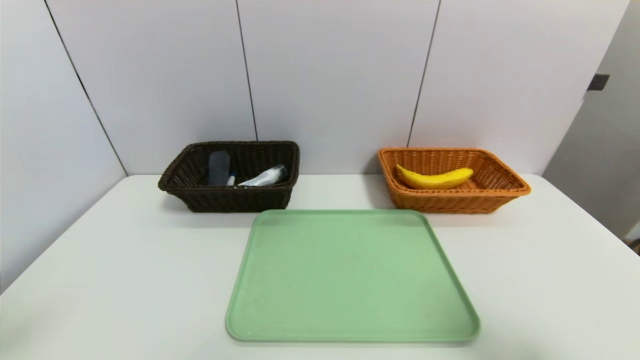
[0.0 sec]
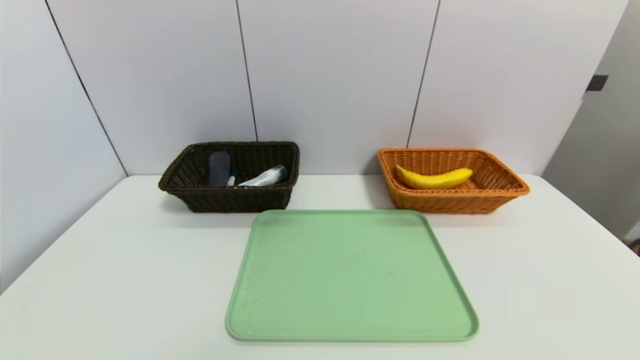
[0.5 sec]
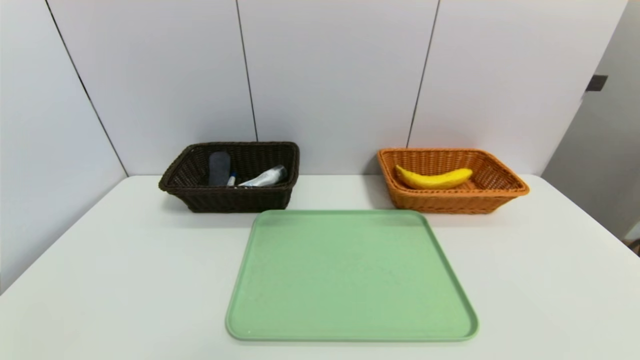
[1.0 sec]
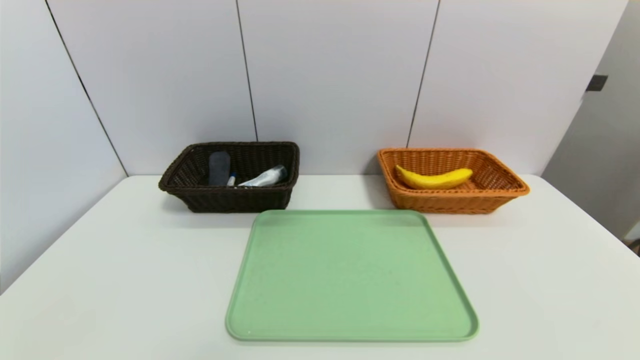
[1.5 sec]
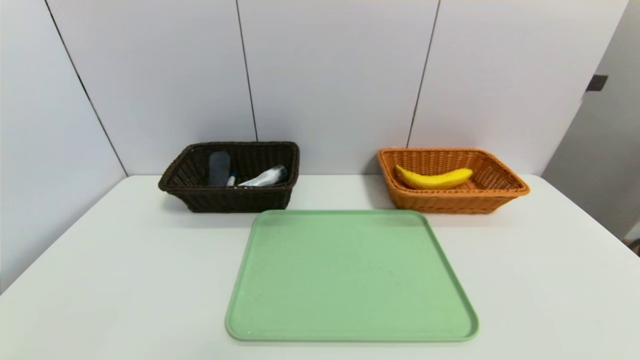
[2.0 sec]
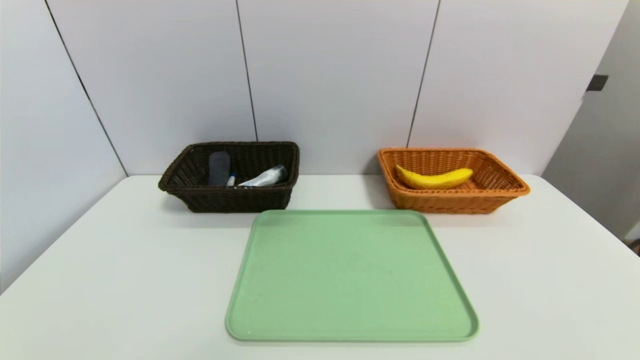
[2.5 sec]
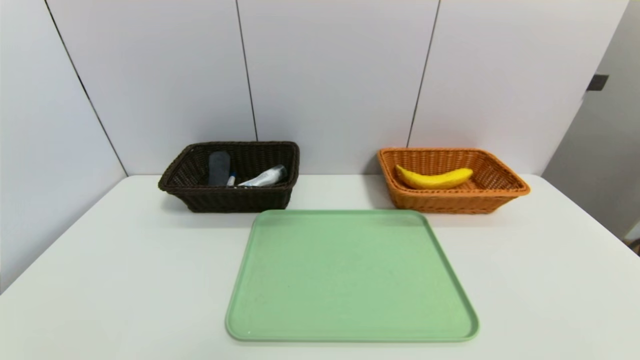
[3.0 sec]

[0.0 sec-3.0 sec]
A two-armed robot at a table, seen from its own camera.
Task of the whole recording: place the food in the right basket with the right gripper, and place the non food items in the left basket with the left gripper.
0.0 sec to 1.5 sec: The right gripper heads downward and backward, covering some 20 cm.

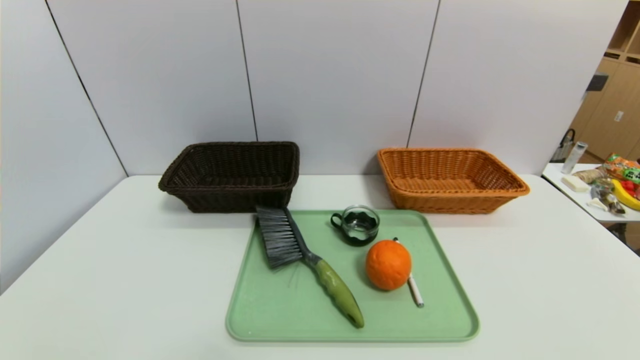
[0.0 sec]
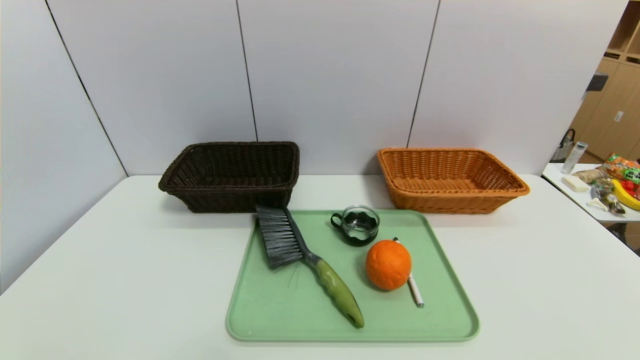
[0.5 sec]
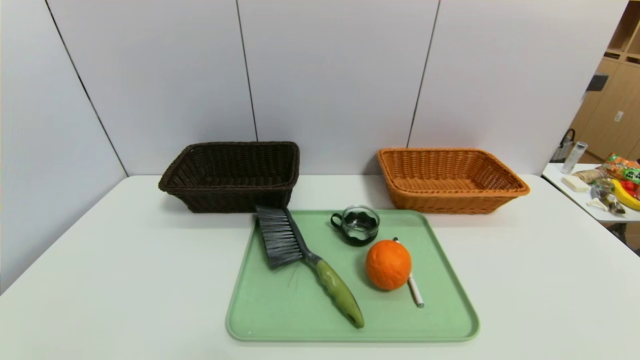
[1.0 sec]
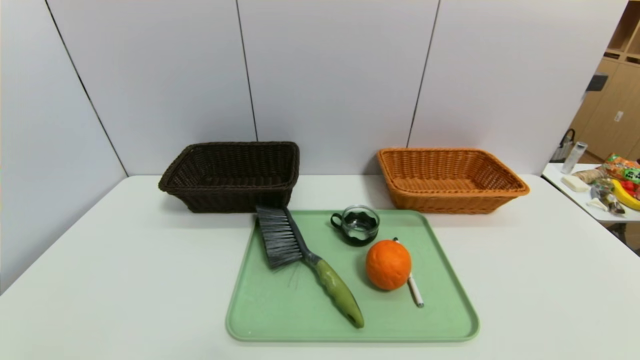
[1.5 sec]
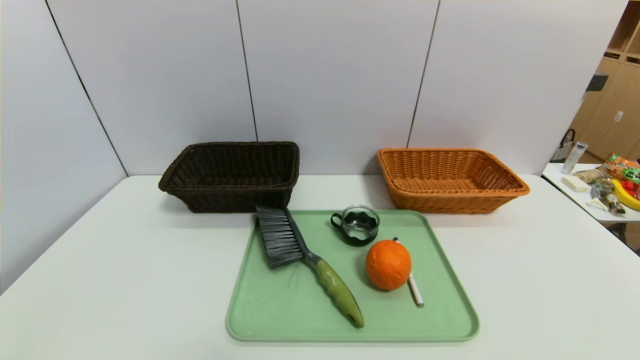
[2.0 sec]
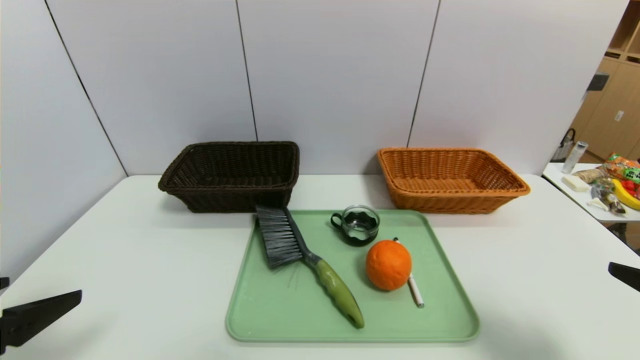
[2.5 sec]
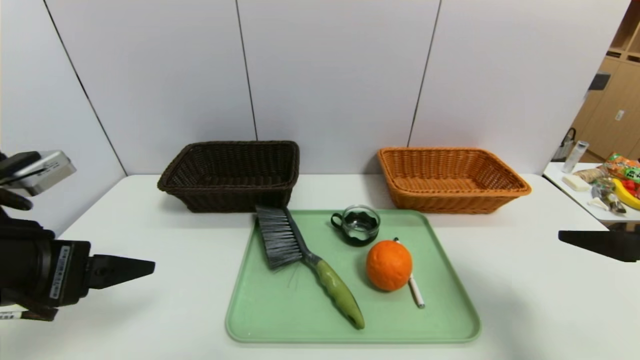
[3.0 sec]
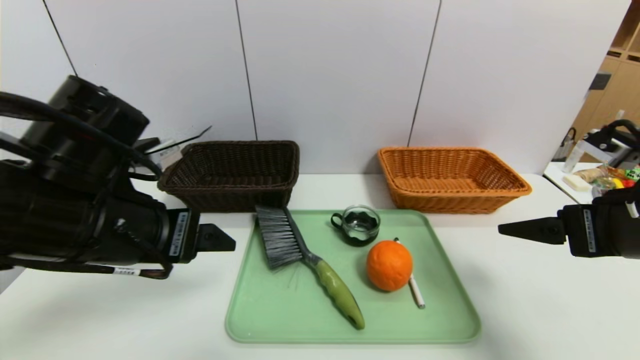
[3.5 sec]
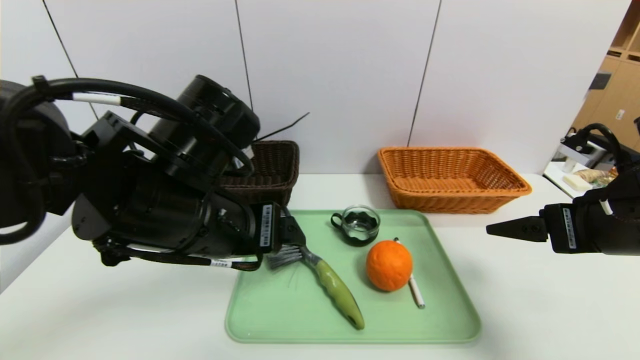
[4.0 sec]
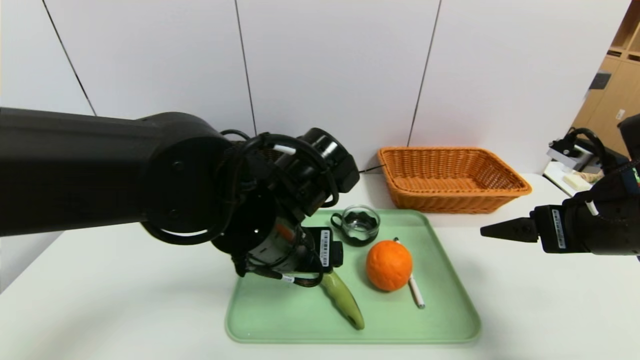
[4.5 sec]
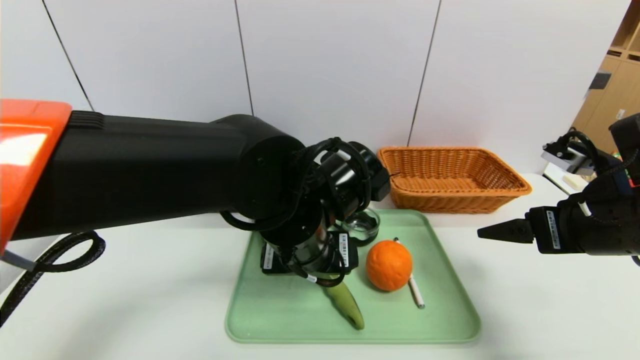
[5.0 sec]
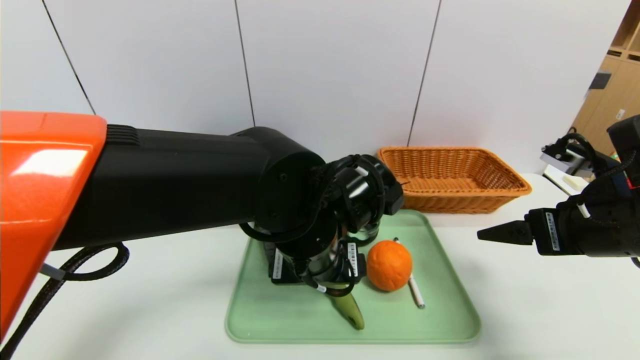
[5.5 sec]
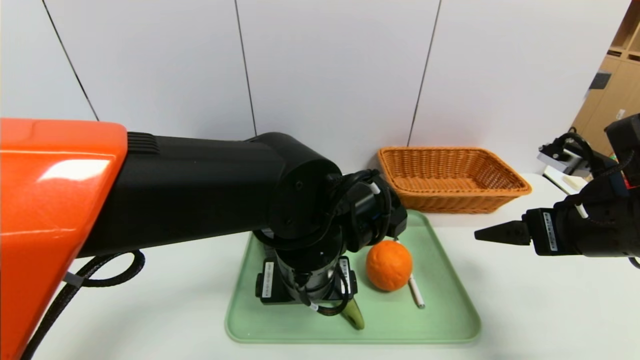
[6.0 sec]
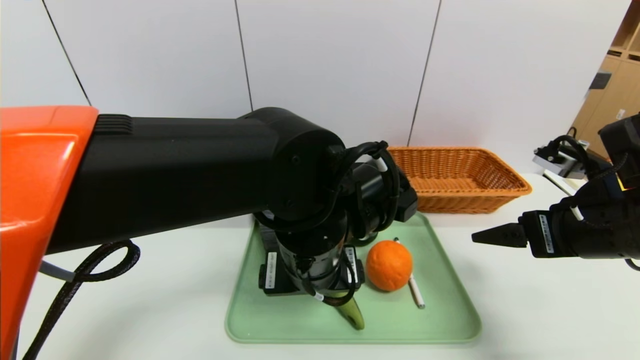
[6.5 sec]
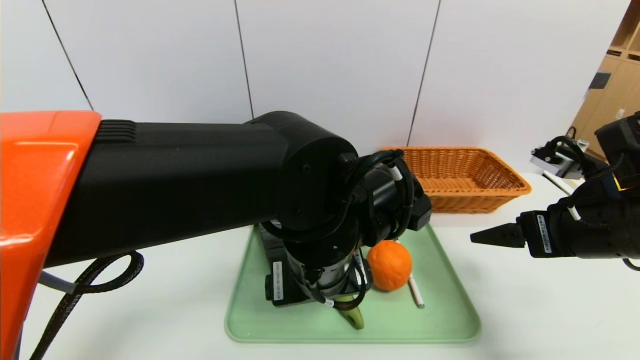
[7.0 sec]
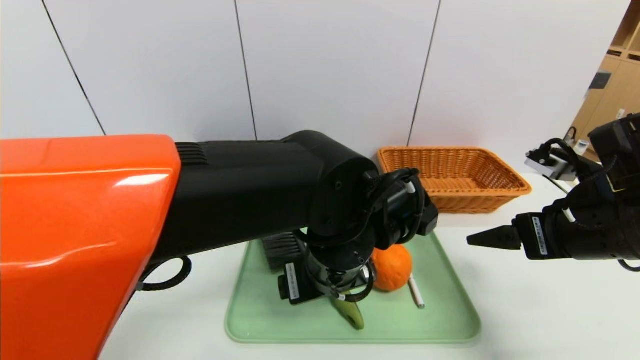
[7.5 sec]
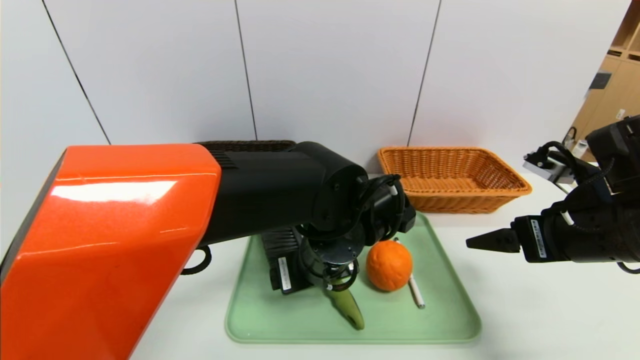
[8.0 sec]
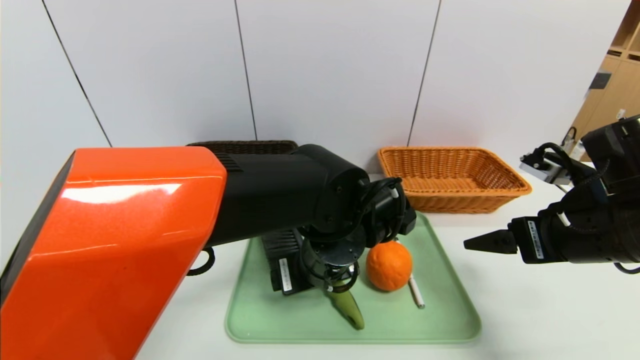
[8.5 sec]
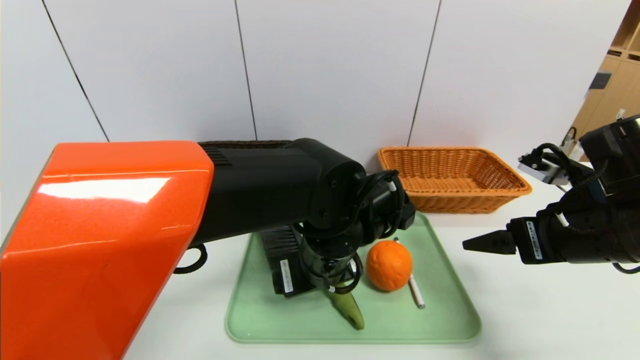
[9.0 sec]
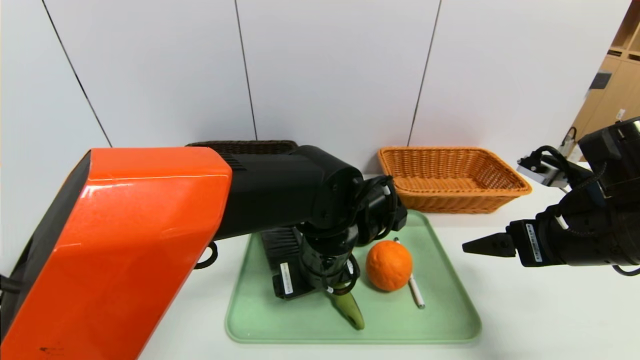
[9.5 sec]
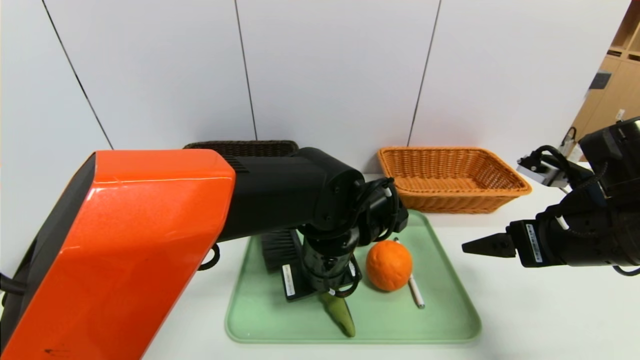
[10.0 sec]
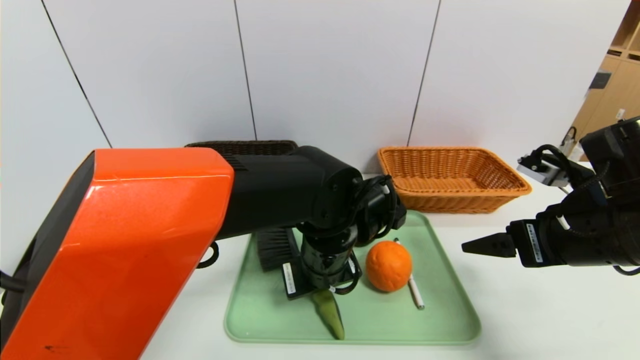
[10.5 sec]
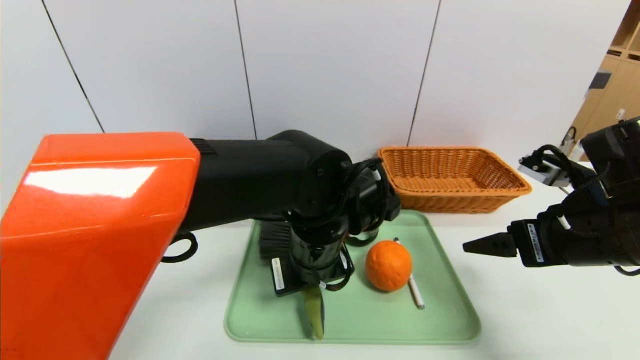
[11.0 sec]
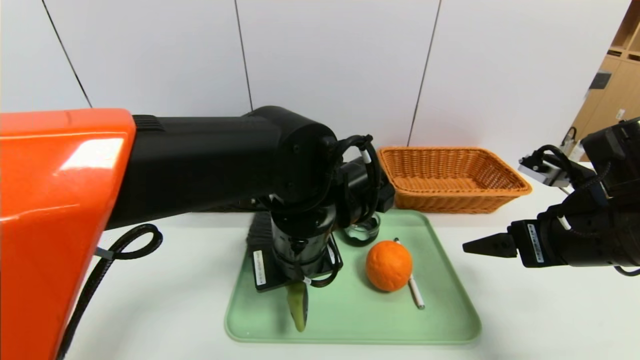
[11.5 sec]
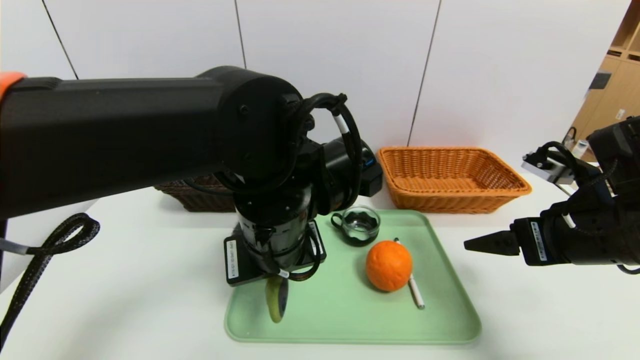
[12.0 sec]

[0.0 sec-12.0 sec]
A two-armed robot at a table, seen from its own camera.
Task of the whole recording: place the food in the right basket with the right gripper, and place the non food items in the left basket with the left gripper.
2.0 sec to 4.0 sec: The left gripper moves forward and to the right, roughly 30 cm. Meanwhile the right gripper travels forward by some 20 cm.
4.0 sec to 6.0 sec: The left gripper heads to the right and downward, covering roughly 10 cm.
8.0 sec to 10.0 sec: The grippers move only a little.
10.0 sec to 12.0 sec: The left gripper shifts roughly 10 cm upward and to the left, and closes up.

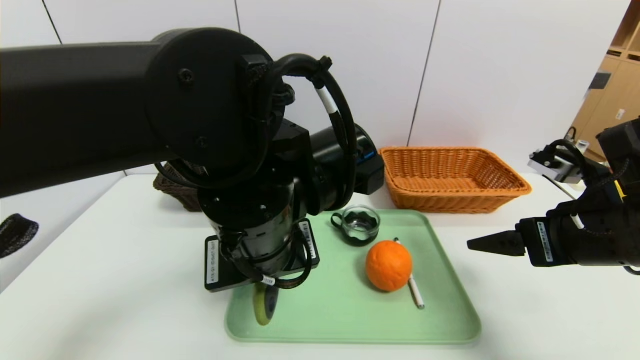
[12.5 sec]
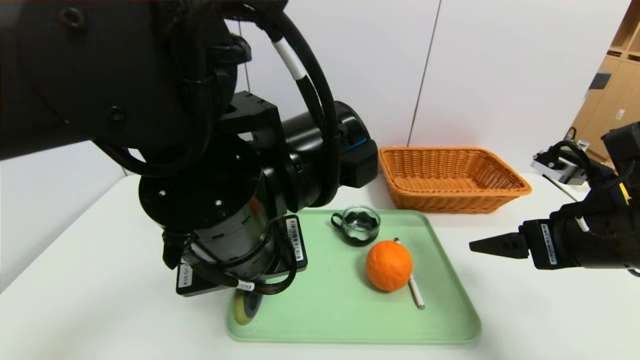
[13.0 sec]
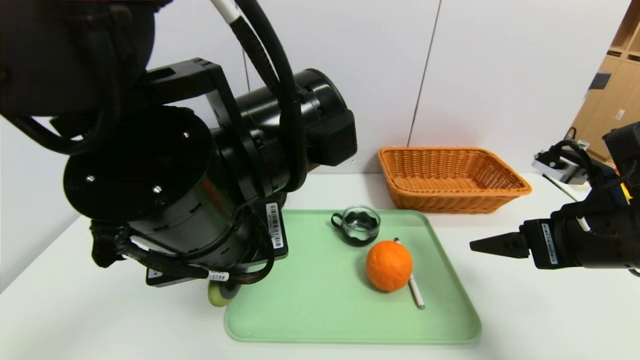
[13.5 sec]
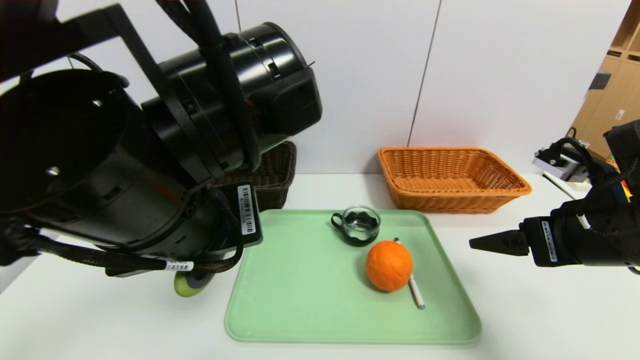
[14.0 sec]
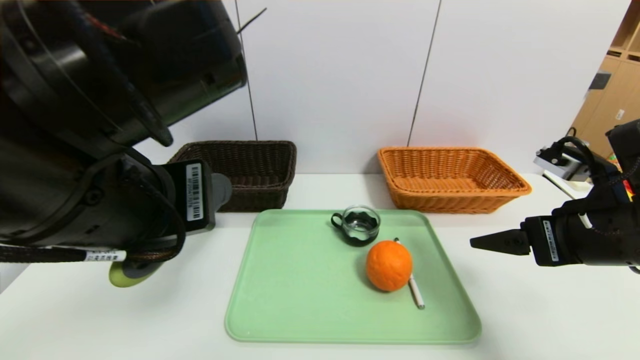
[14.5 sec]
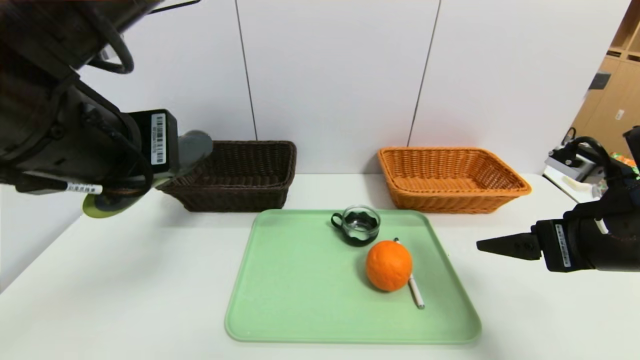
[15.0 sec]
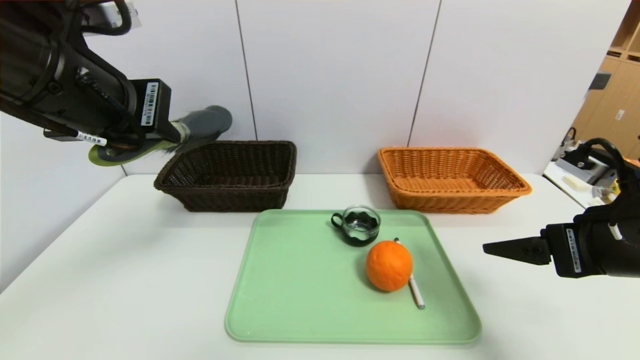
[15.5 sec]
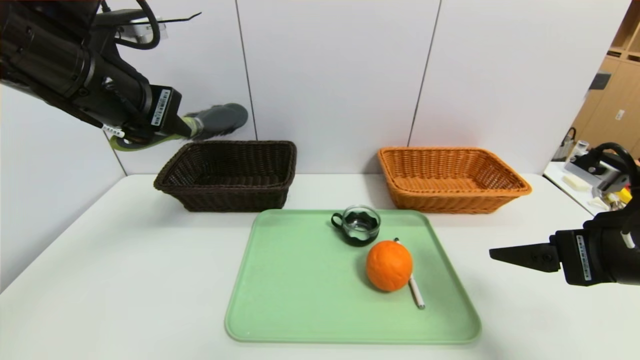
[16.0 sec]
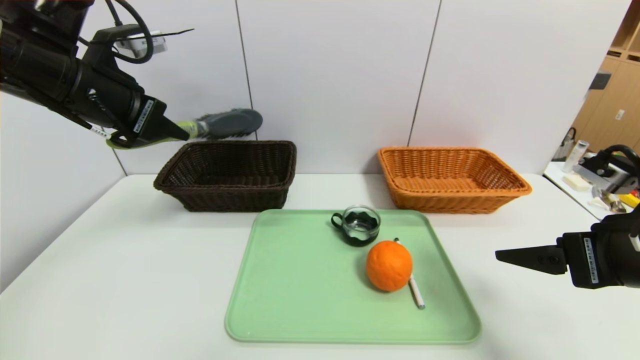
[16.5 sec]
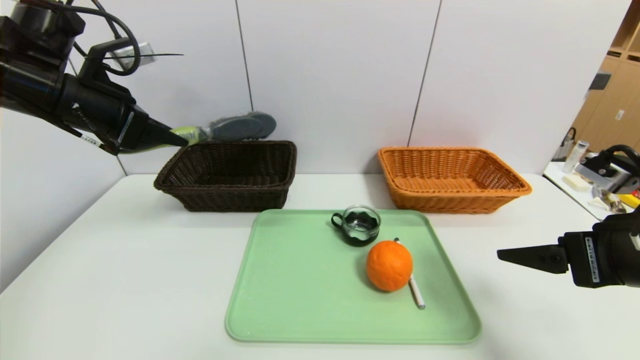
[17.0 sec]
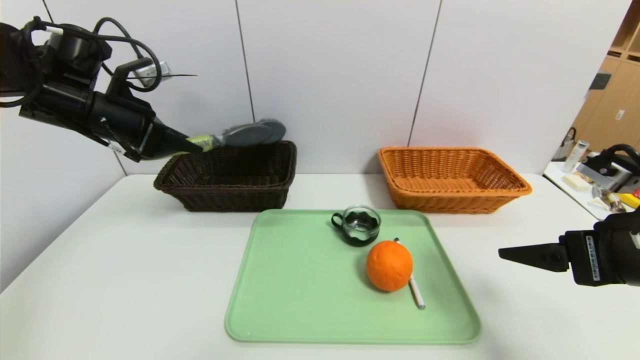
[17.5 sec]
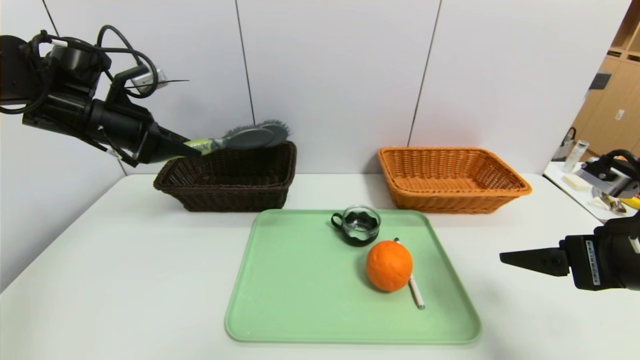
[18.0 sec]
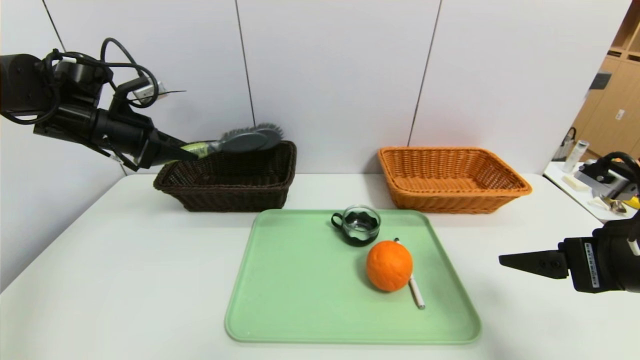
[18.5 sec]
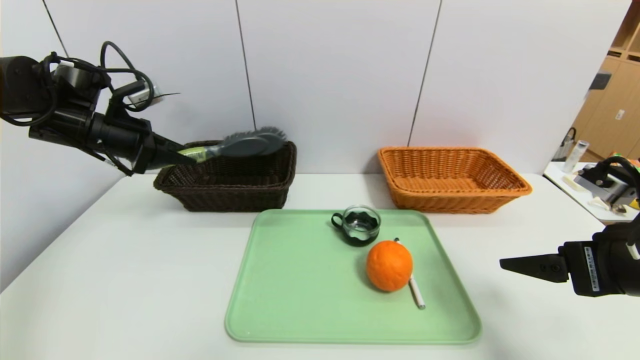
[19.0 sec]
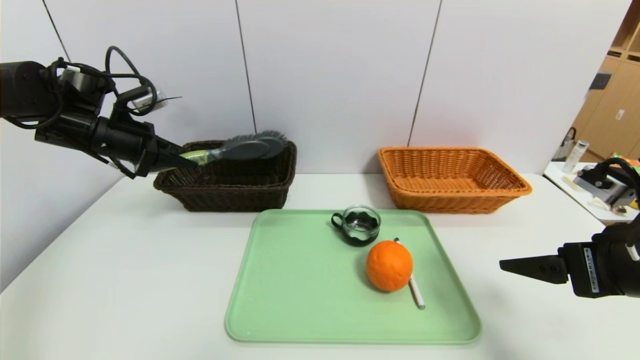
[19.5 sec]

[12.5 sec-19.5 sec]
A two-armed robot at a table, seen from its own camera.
Task of the whole recording: place the food in the right basket with the right gripper, and place the non food items in the left basket with the left gripper.
12.5 sec to 14.5 sec: The left gripper shifts approximately 15 cm upward, to the left and backward.
14.5 sec to 16.0 sec: The left gripper moves forward and to the left, about 15 cm.
16.0 sec to 17.5 sec: The left gripper goes about 15 cm forward, to the left and downward.
17.5 sec to 19.5 sec: The left gripper changes place by approximately 5 cm.
